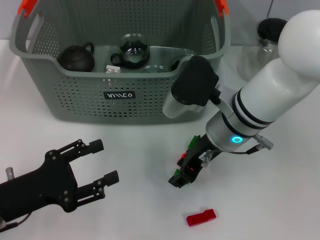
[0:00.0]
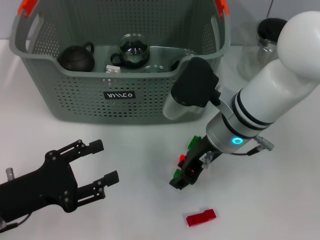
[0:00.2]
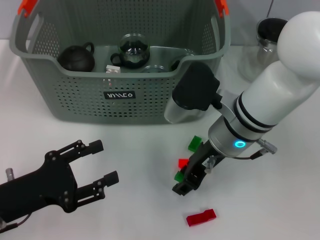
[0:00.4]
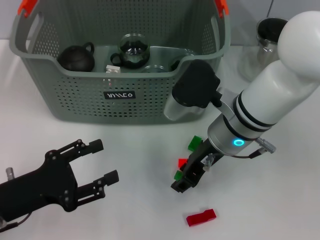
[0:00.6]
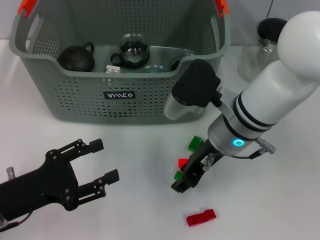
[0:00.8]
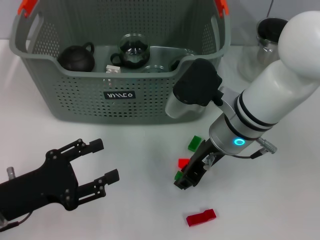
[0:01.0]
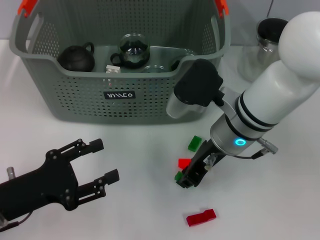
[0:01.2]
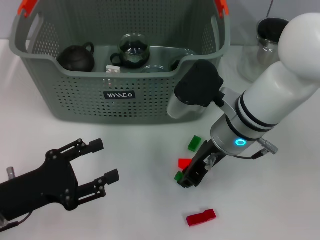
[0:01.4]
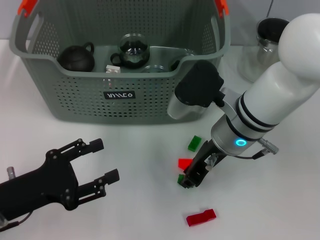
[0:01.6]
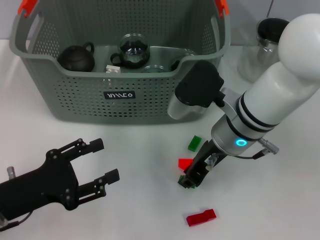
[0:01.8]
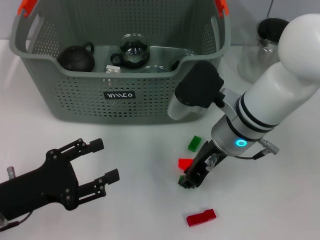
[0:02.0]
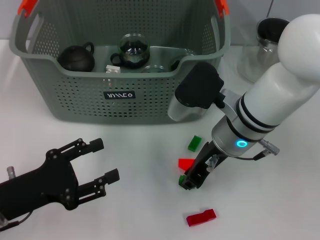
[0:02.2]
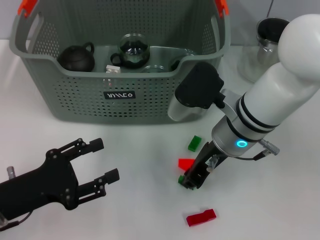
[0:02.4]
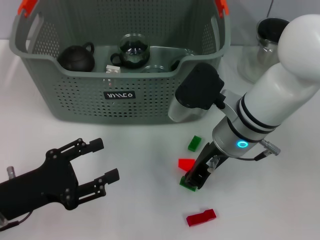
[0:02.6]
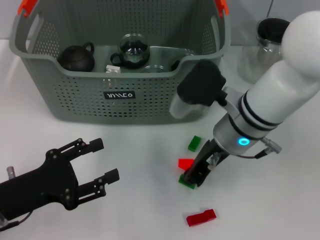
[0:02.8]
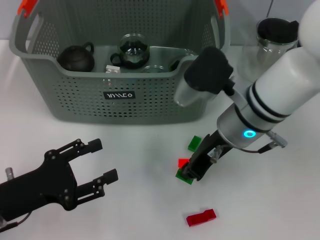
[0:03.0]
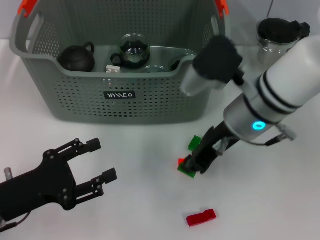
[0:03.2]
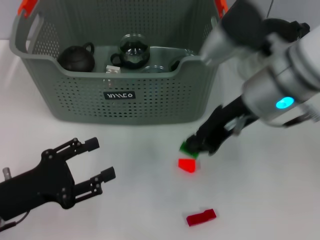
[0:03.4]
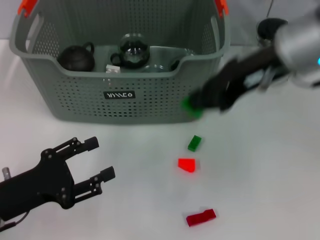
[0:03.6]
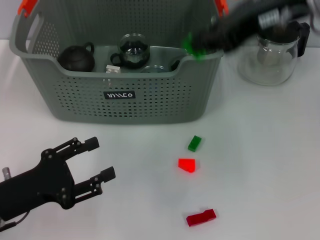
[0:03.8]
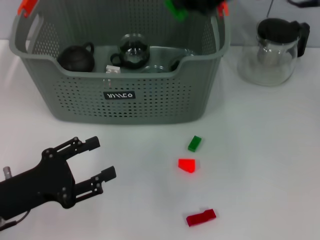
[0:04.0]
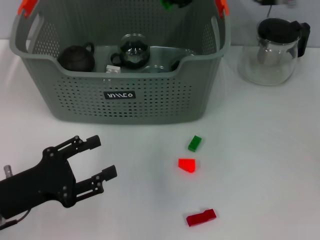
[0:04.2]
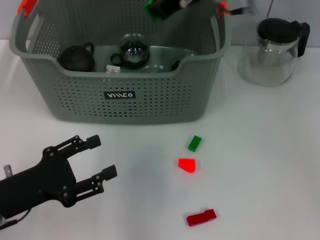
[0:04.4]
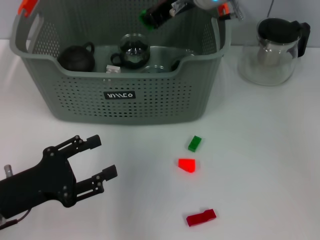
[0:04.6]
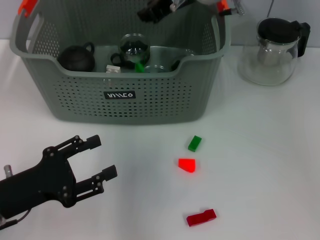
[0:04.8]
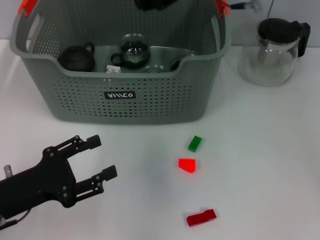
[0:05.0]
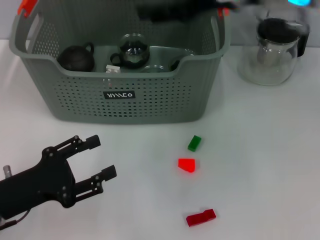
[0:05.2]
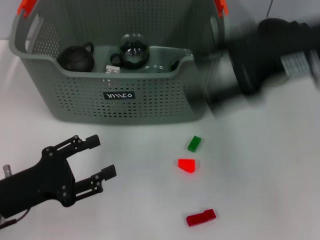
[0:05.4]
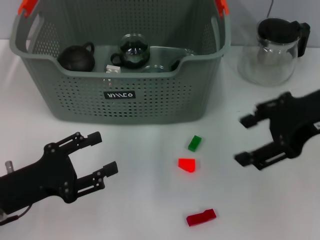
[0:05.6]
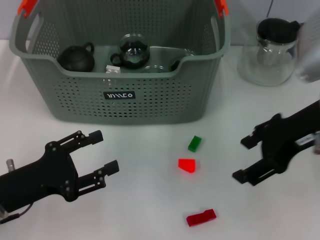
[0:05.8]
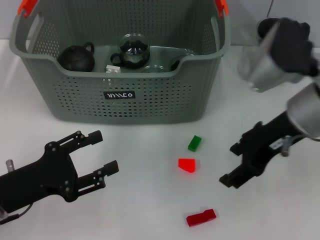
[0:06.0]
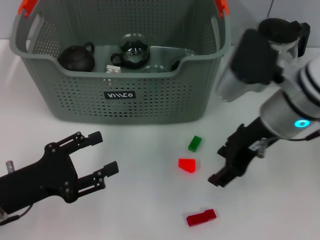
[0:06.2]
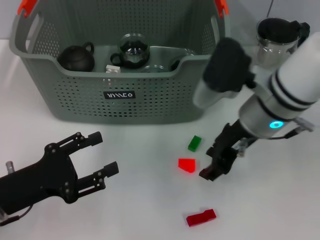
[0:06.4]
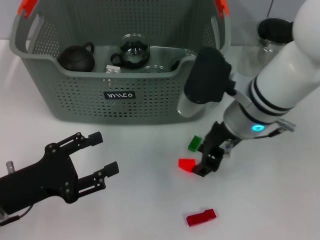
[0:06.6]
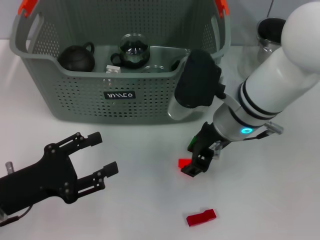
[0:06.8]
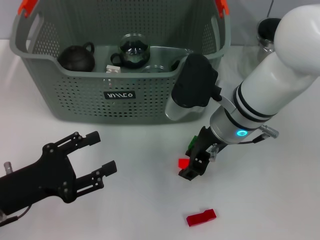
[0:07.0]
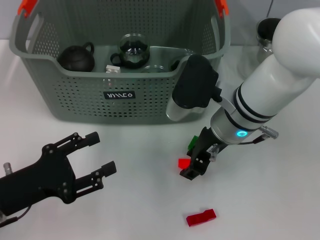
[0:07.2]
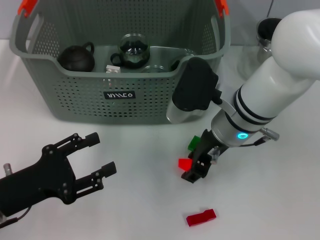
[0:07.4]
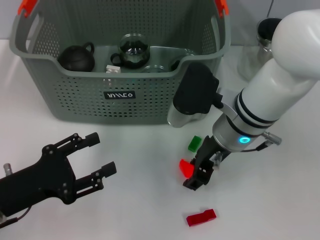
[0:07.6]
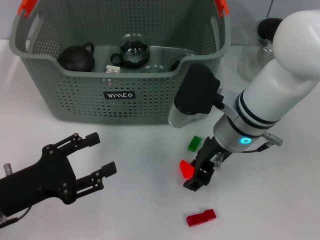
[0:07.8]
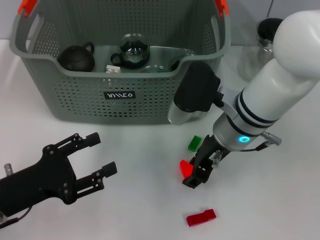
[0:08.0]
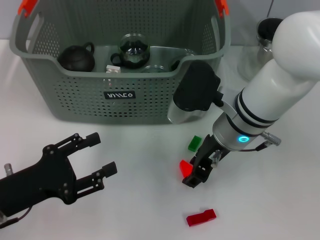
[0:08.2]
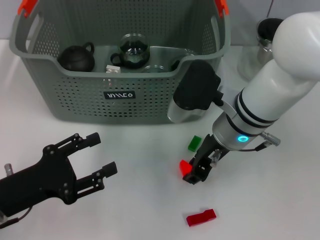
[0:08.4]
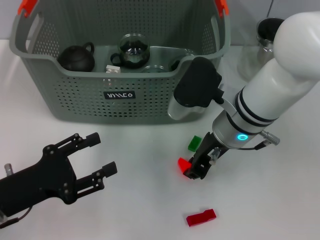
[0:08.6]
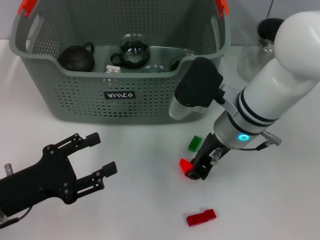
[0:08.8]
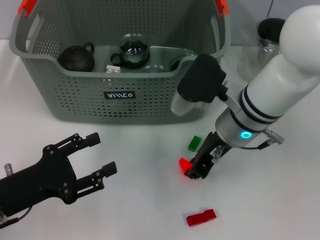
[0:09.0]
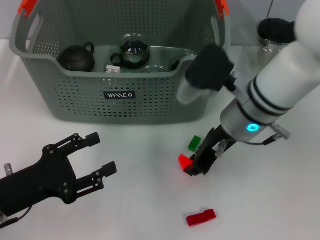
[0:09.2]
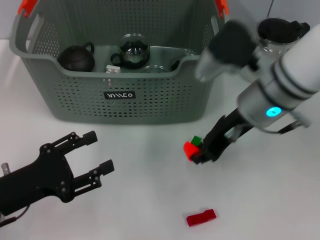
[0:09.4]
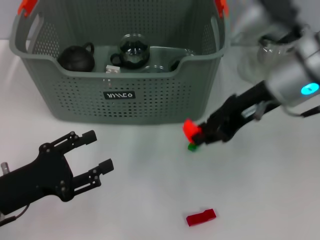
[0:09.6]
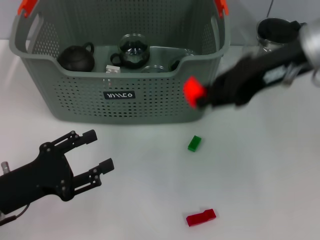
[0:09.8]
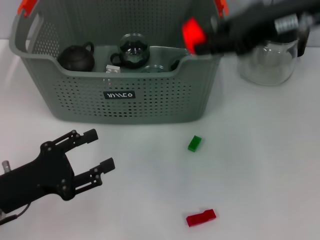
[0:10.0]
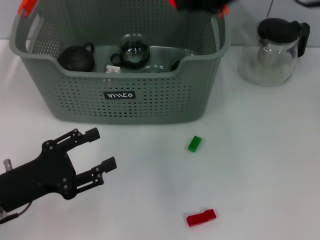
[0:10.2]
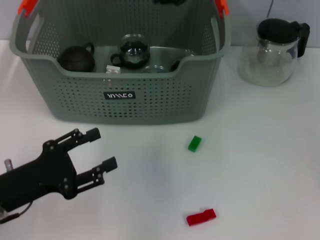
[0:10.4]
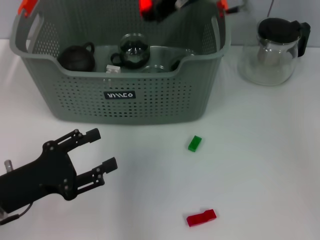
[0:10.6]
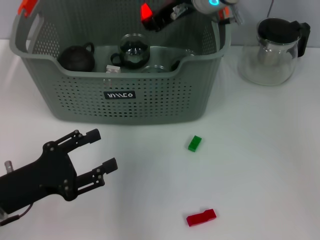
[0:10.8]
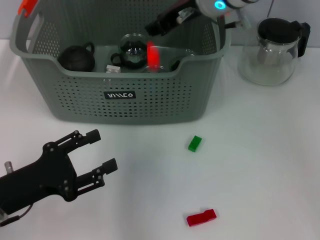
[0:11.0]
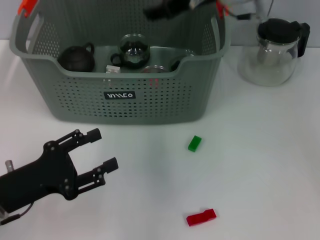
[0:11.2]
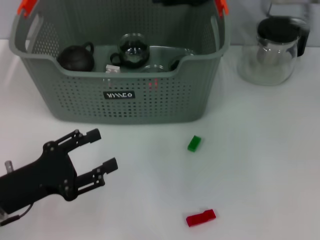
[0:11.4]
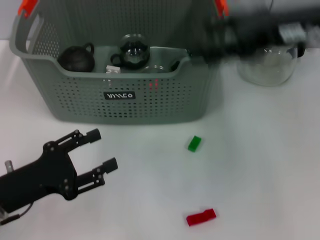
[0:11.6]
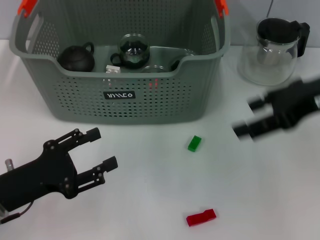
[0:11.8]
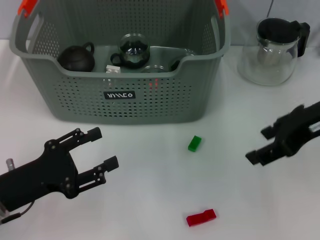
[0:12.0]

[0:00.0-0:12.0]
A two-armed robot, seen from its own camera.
Task of the whole recording: pick up the teacup on the table and place it into the storage bin, pick up the block on the table and place it into the storage bin.
Step, 0:00.0 to 0:02.6: Grasp the green block with right gripper.
Step, 0:02.8 to 0:04.8: Place the green block in the storage box with right gripper.
Step, 0:05.2 to 0:08.6: Grasp the orange block with right gripper.
Step, 0:08.8 to 0:11.2: Place the orange block in the storage box with right gripper.
0:00.0 to 0:01.6: Both grippers stay put.
0:01.6 to 0:03.0: There are only small adjustments of the grippers.
0:03.0 to 0:04.4: The right gripper travels upward and forward by approximately 15 cm.
0:04.4 to 0:06.0: The right gripper goes some 15 cm backward, to the right and downward, and opens up.
0:06.0 to 0:07.6: The right gripper is displaced to the left and downward by roughly 10 cm.
0:07.6 to 0:09.0: The right gripper closes.
0:09.0 to 0:10.4: The right gripper is displaced upward by roughly 15 cm.
0:10.4 to 0:12.0: The right gripper moves to the right, backward and downward, approximately 15 cm, and opens.

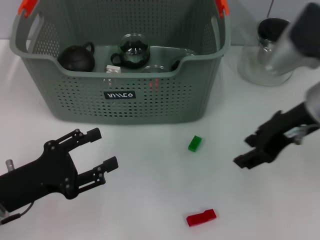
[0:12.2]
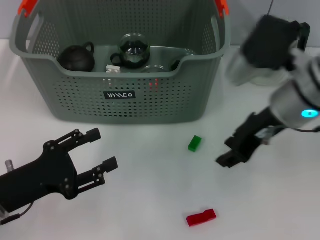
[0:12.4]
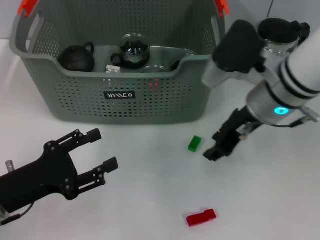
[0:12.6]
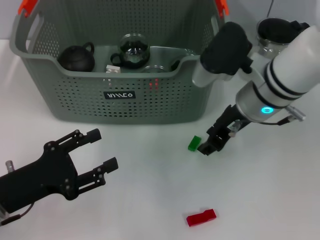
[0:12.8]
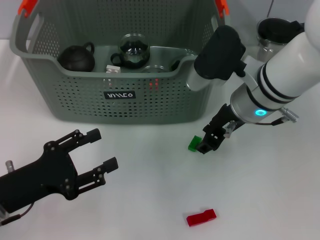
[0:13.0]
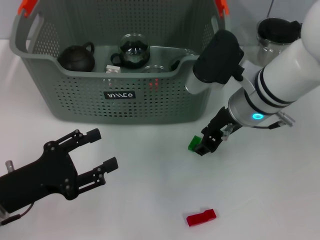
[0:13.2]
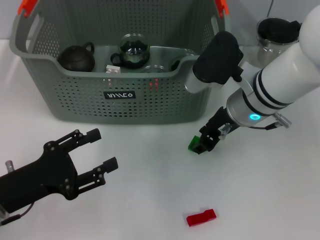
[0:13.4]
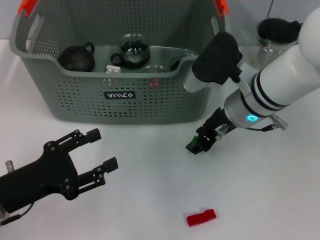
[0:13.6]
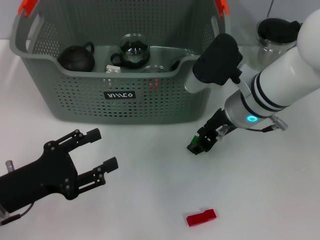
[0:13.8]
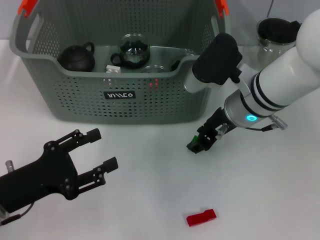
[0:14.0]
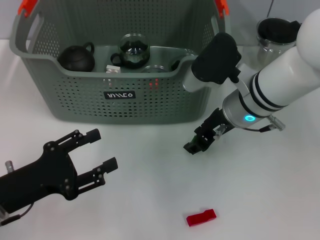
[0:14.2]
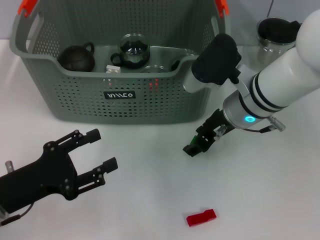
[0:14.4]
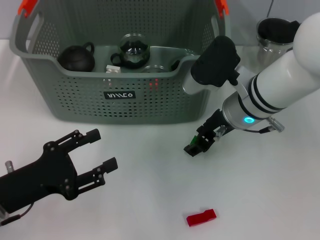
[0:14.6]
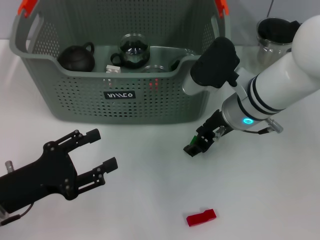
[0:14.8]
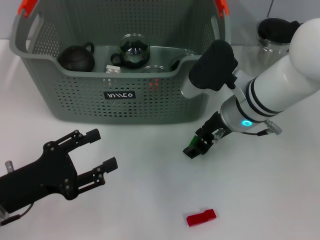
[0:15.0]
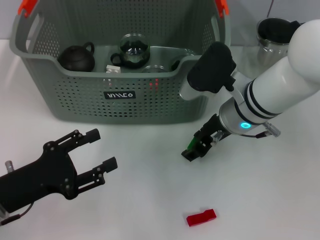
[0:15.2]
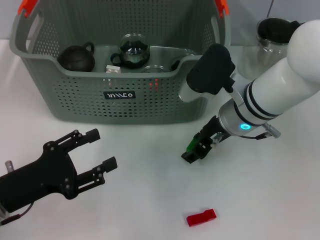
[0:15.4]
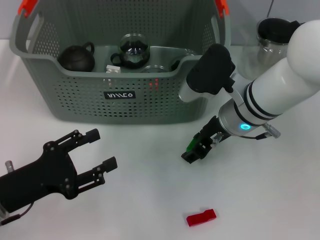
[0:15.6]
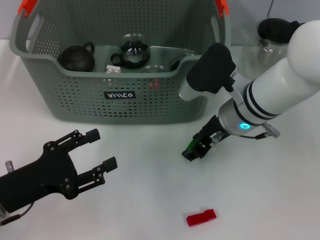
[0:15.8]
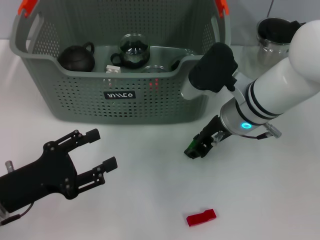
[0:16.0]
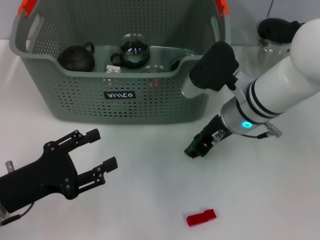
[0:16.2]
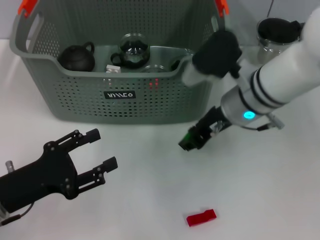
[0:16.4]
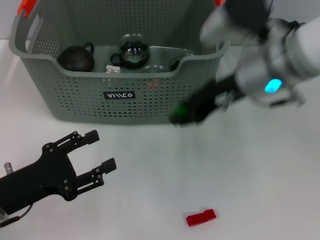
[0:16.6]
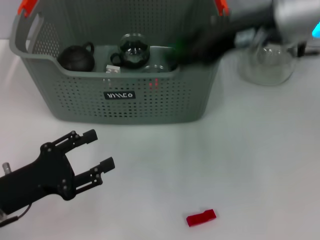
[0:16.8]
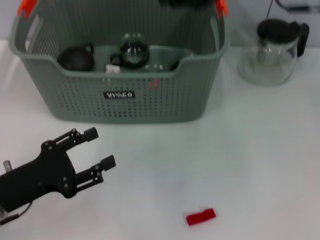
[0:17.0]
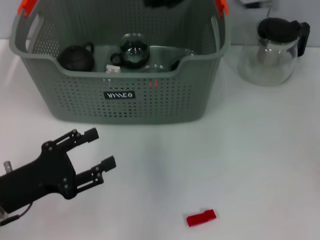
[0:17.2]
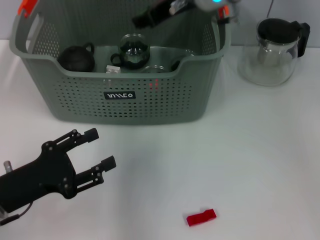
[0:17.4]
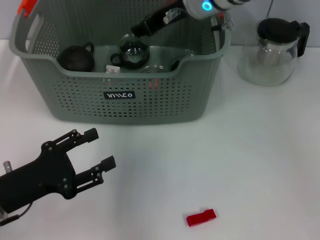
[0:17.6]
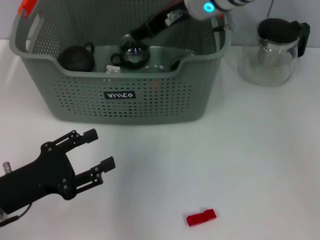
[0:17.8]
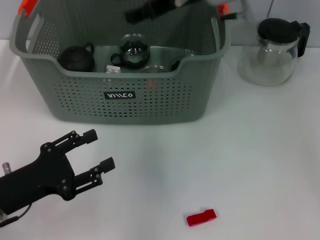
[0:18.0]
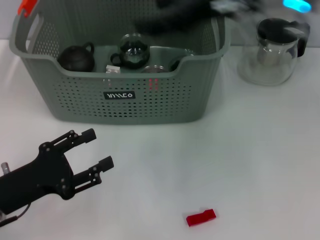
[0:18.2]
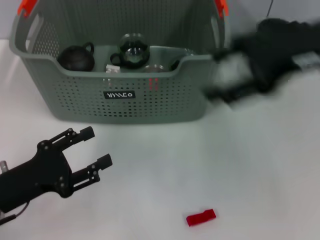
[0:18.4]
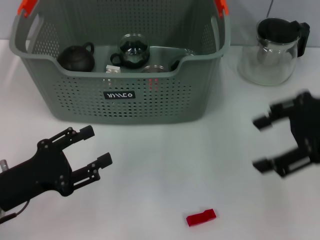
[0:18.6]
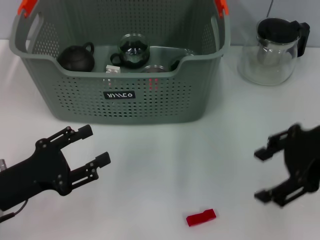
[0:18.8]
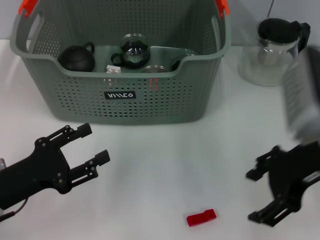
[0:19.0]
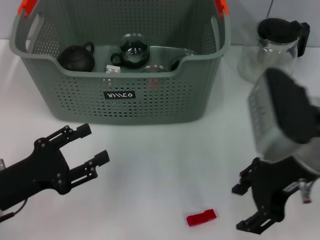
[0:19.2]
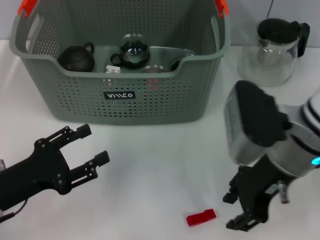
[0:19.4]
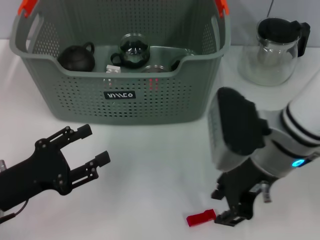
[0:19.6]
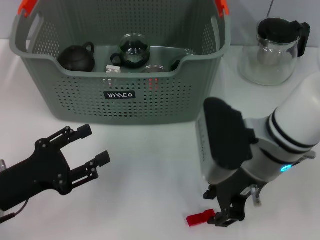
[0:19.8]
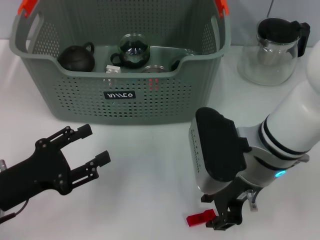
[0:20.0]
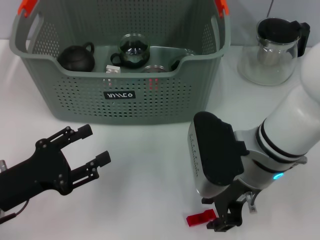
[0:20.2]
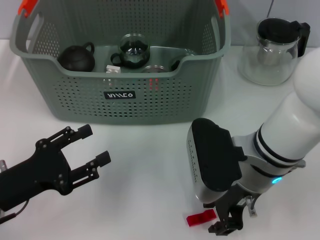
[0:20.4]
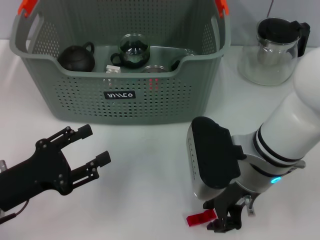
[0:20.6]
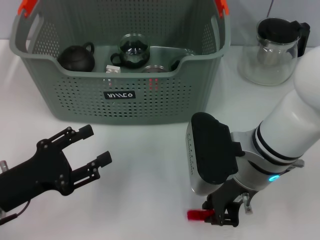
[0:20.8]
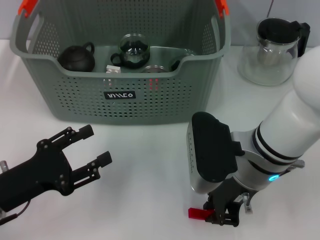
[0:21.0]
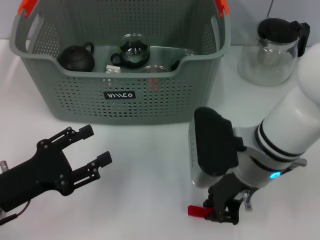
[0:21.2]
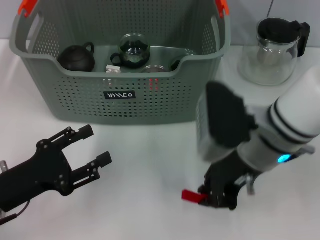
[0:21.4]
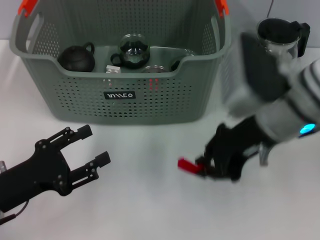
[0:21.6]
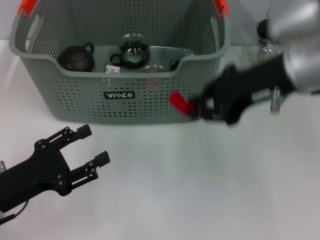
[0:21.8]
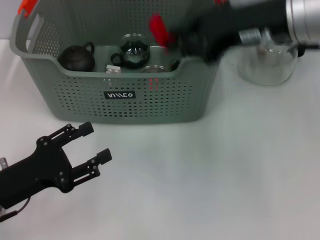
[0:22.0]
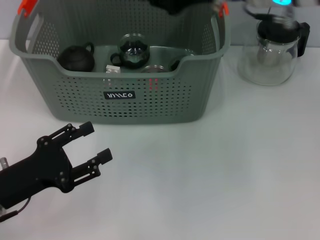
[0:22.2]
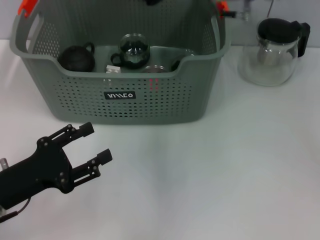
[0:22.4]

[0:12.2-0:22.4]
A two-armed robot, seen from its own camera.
Task of the whole recording: pick up the teacup on the table and place it into the storage bin, pick up the block on the table and place it into the storage bin.
Step, 0:12.2 to 0:16.0: Grasp the green block with right gripper.
Step, 0:16.2 to 0:18.0: Place the green block in the storage box with right gripper.
Step, 0:18.2 to 0:21.0: Grasp the red block with right gripper.
0:12.2 to 0:13.6: The right gripper travels downward and to the left by some 10 cm, and closes its fingers.
0:13.6 to 0:15.2: There are only small adjustments of the grippers.
0:15.2 to 0:16.6: The right gripper goes roughly 10 cm upward.
0:16.6 to 0:18.0: The right gripper shifts some 10 cm forward and upward.
0:18.0 to 0:19.4: The right gripper heads backward, downward and to the right, covering roughly 20 cm.
0:19.4 to 0:21.0: The right gripper ends up some 5 cm from where it was, and closes up.
0:21.0 to 0:22.4: The right gripper goes some 20 cm upward and forward.
